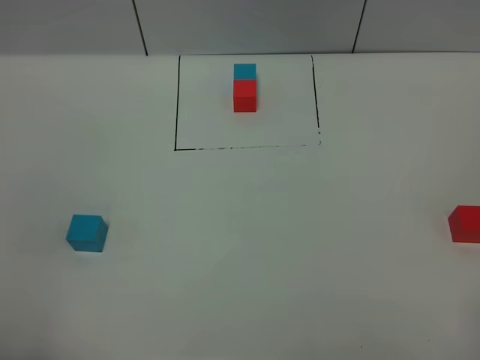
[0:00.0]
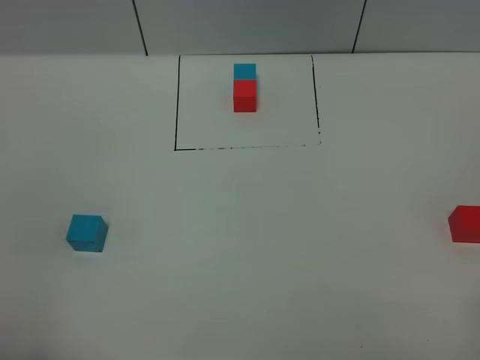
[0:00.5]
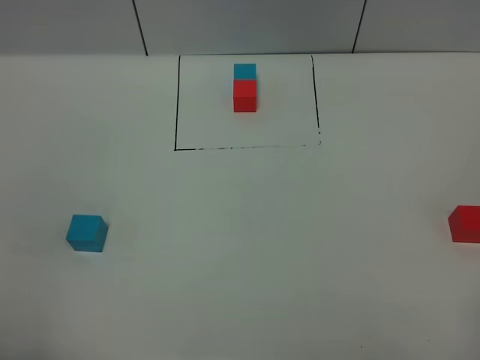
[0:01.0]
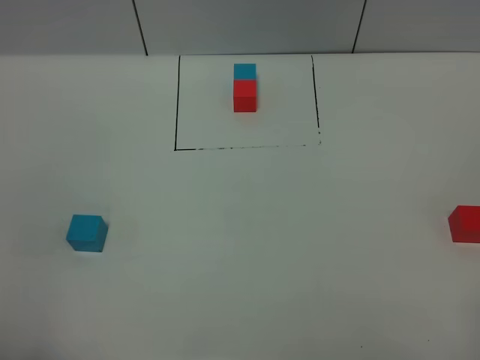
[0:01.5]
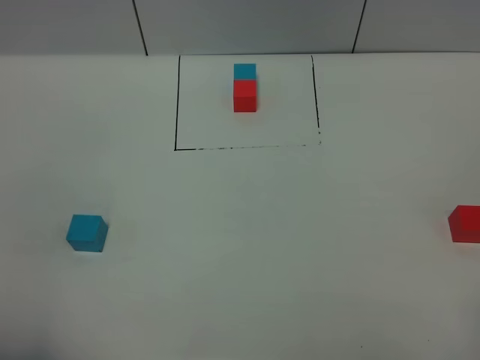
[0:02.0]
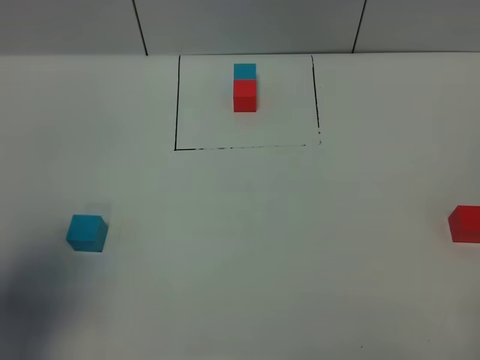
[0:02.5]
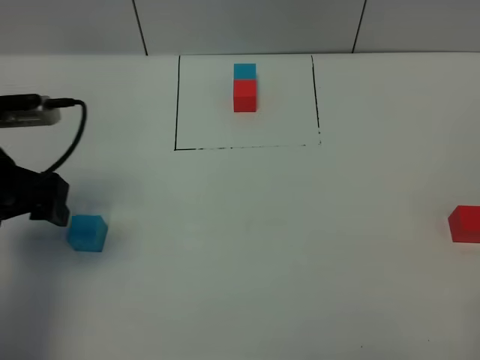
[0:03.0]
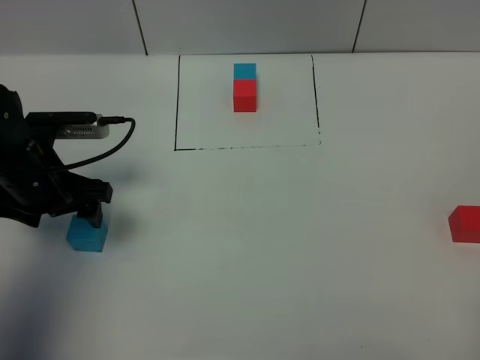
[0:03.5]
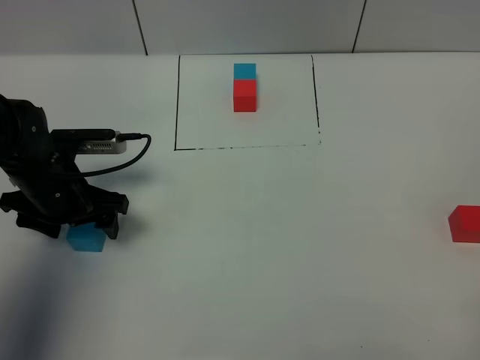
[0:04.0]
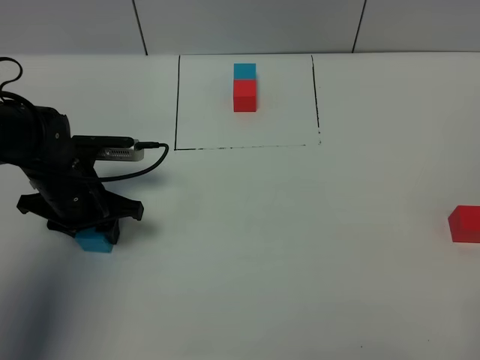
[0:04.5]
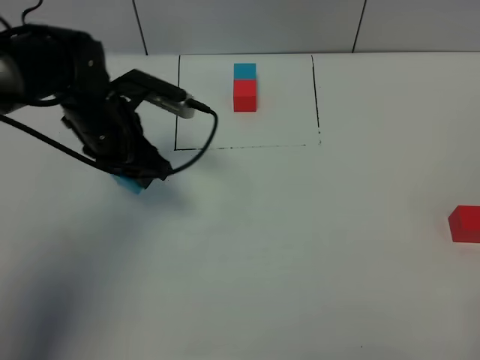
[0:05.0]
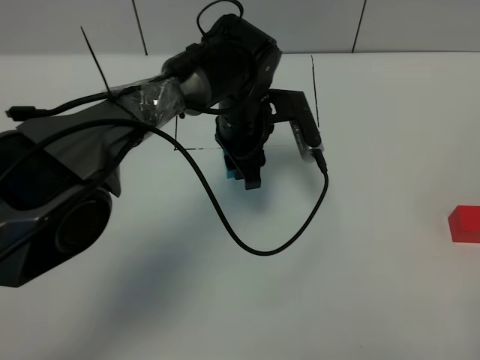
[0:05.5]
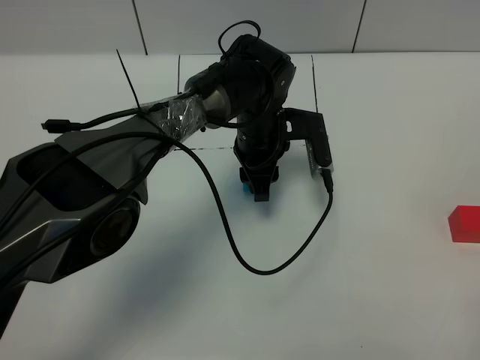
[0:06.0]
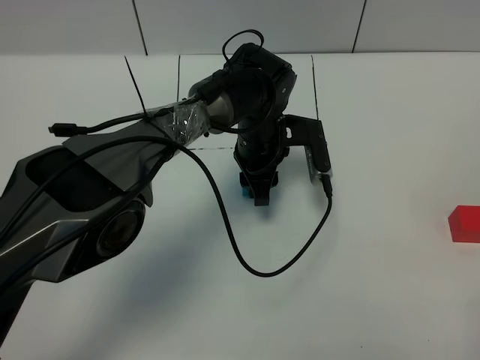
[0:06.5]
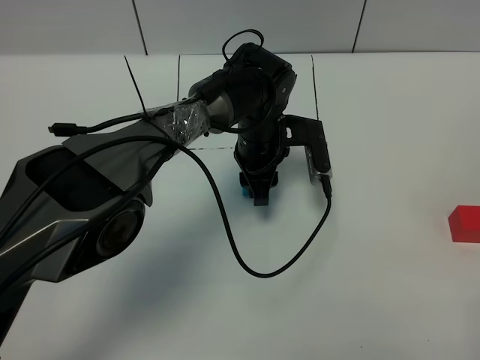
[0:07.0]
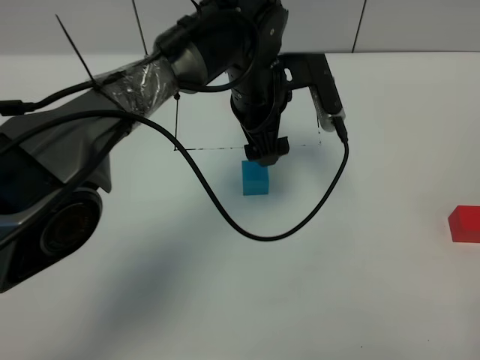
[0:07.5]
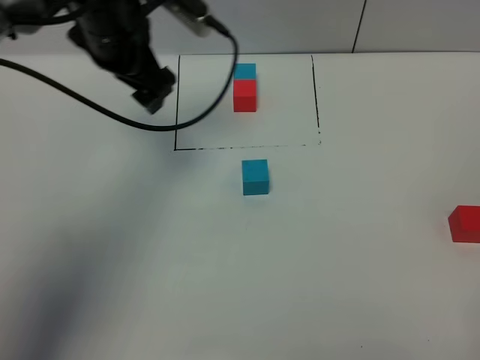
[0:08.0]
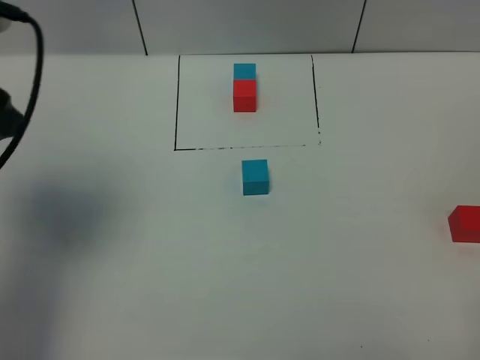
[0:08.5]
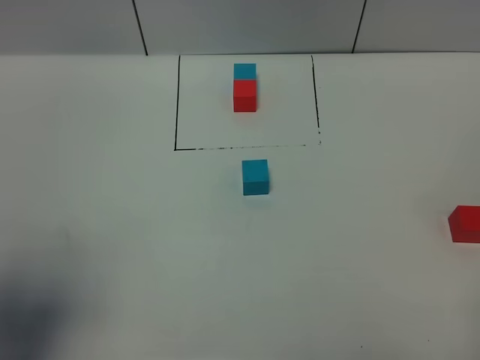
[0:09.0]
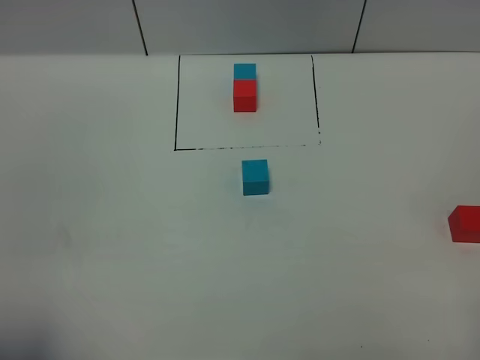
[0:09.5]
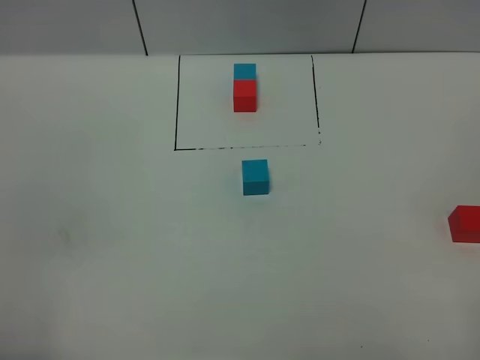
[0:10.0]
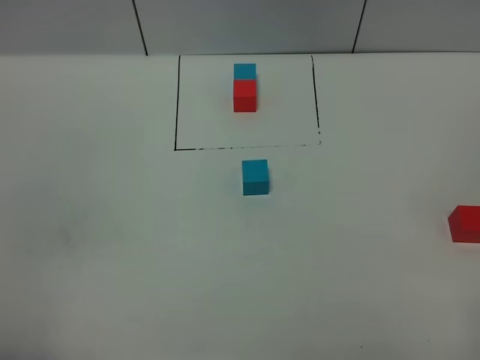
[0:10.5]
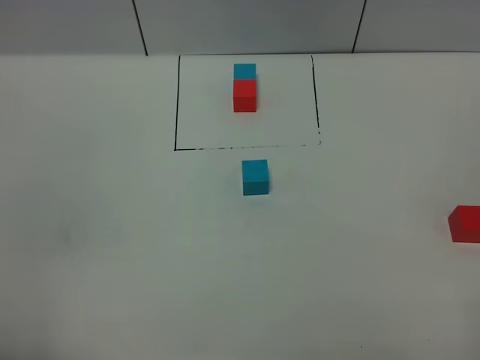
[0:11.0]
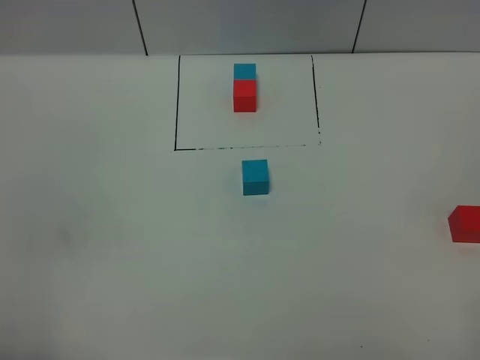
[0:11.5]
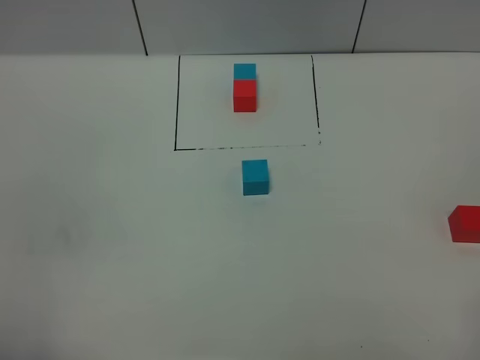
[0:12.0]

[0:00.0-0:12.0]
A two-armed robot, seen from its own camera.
Task of the whole recording: According to the building block template in front, assemble the scattered blocks together.
Step, 0:03.0 to 0:07.5: Put the blue cube in the center of the table.
0:02.0 to 0:04.0: The left gripper heads forward and downward, covering about 35 cm.
0:04.0 to 0:06.0: The left gripper shifts about 25 cm to the right, and closes.
0:06.0 to 0:08.0: The left gripper moves to the left and upward, about 25 cm, and opens up.
0:08.0 to 0:10.0: The left gripper goes about 40 cm backward.
0:10.0 to 0:12.0: The two grippers keep their place.

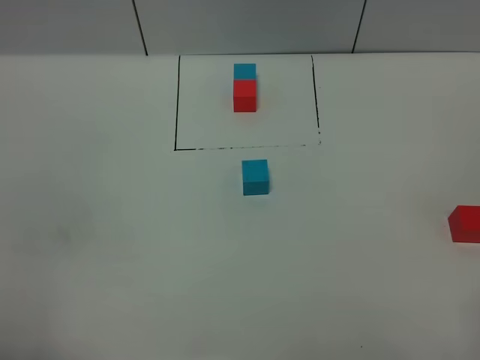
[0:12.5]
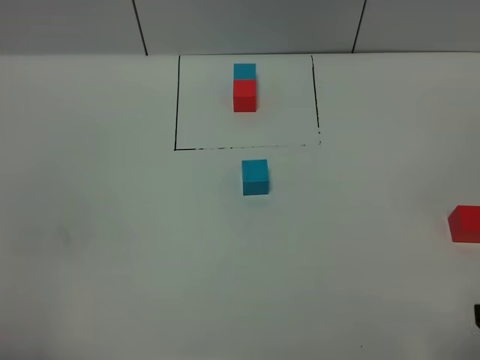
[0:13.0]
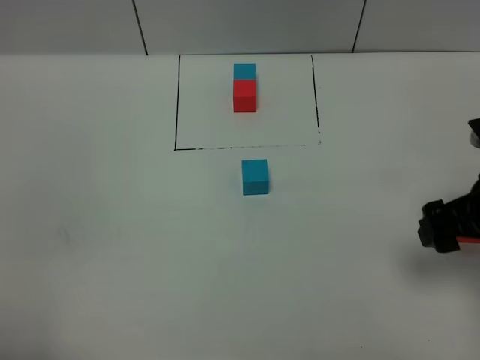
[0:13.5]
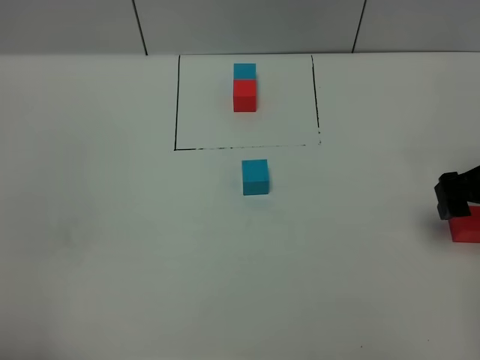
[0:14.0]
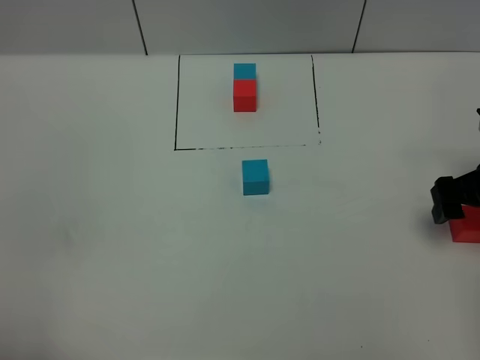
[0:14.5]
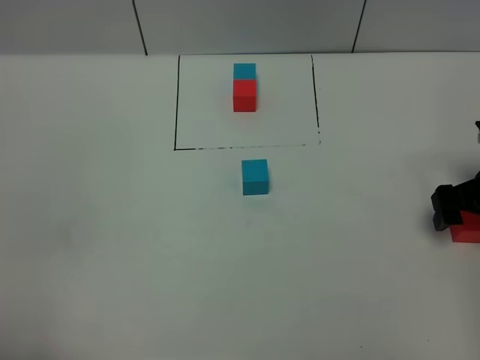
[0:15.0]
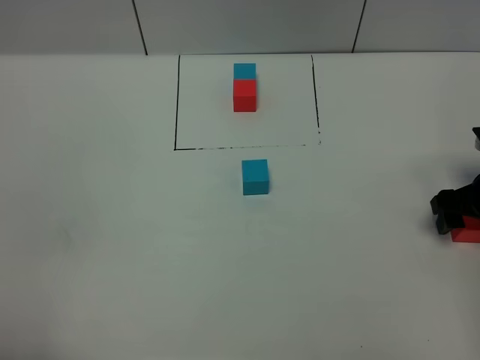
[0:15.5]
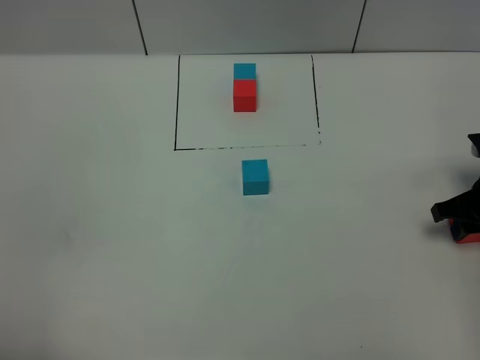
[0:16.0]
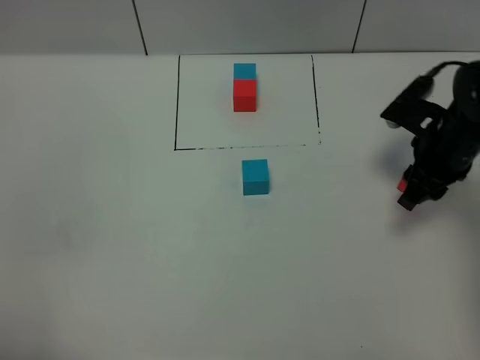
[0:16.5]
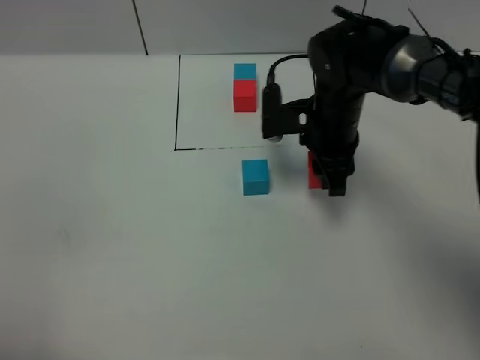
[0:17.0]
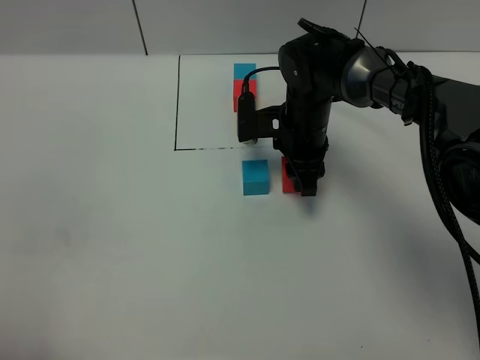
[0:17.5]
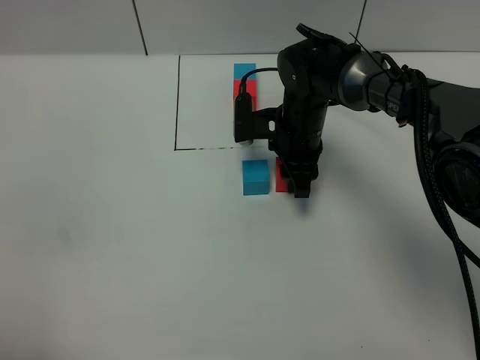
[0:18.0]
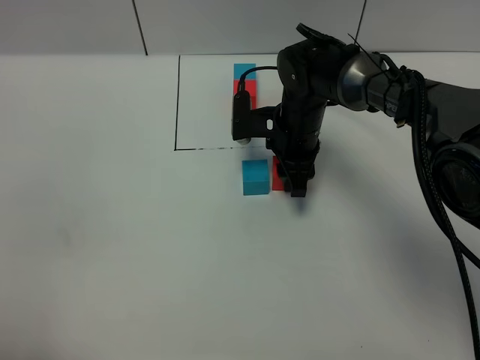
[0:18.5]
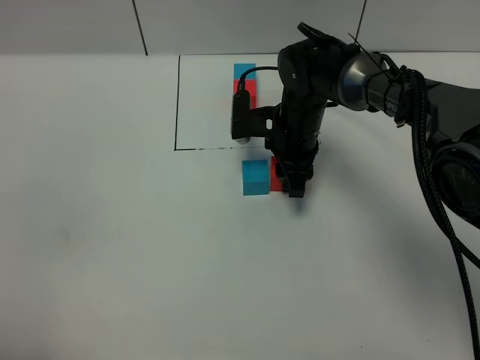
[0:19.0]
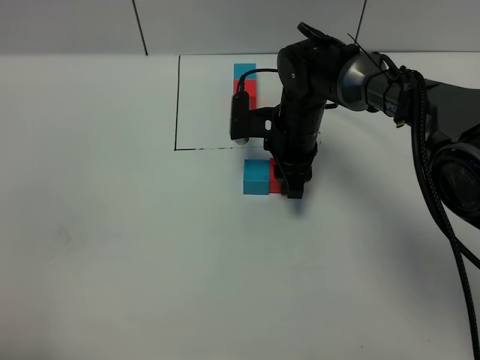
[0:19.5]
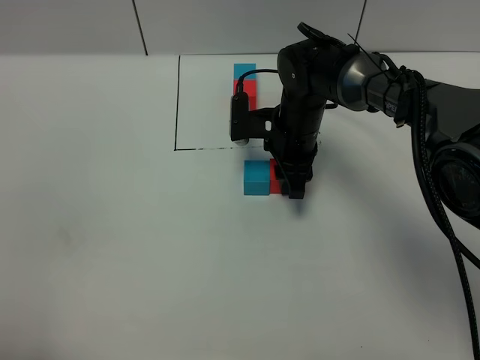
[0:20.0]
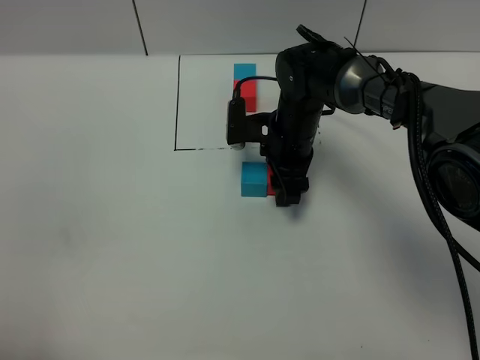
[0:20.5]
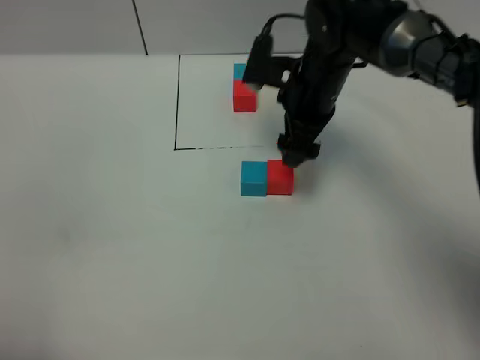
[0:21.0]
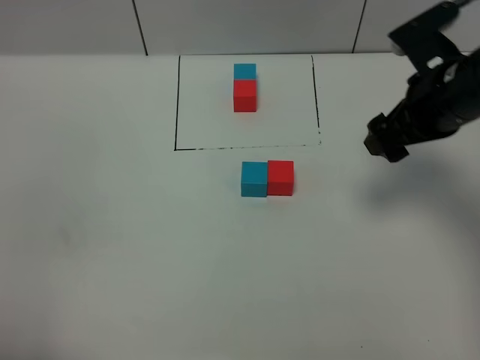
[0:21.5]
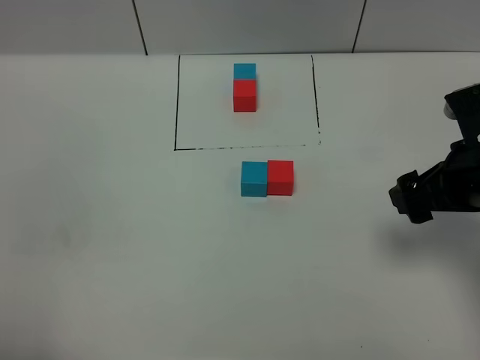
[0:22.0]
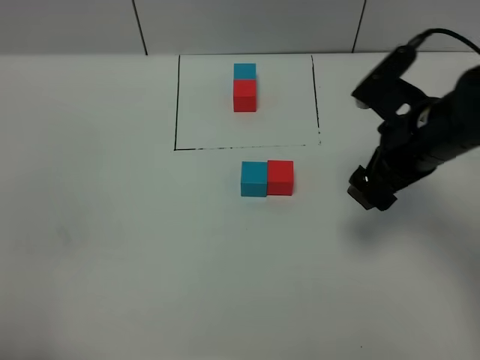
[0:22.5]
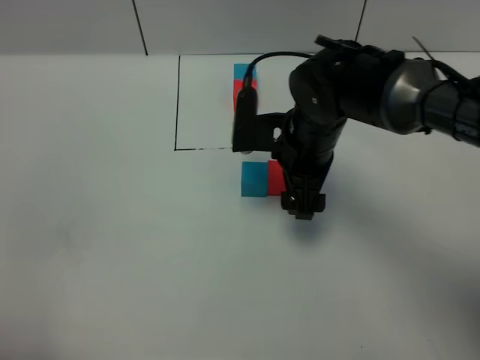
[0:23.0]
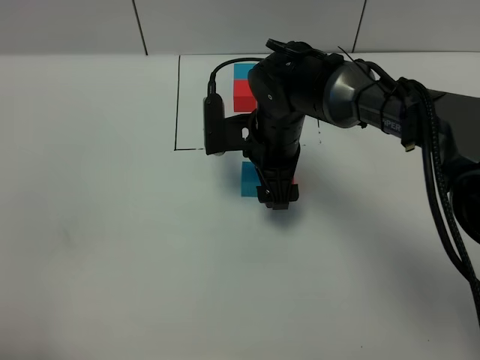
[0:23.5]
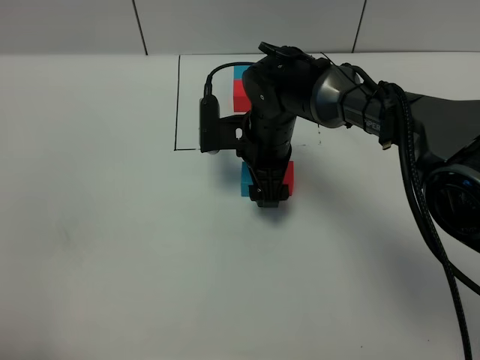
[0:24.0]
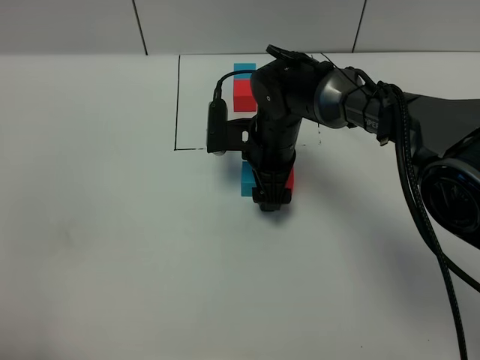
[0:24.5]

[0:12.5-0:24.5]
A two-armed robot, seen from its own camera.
Task of the whole recording: According to the building block template in front, assemble the scattered blocks together.
Step, 0:12.5 to 0:21.0: Put the red cube on the right of the blue cube.
0:12.5 to 0:14.5: The right gripper heads forward, covering some 30 cm.
0:14.5 to 0:16.5: The right gripper travels to the left and forward by some 10 cm, and closes.
0:16.5 to 0:18.5: The right gripper travels to the left and forward by some 20 cm.
0:18.5 to 0:20.5: The right gripper opens its fingers.
0:20.5 to 0:22.5: The right gripper goes roughly 20 cm backward, upward and to the right.
0:22.5 to 0:24.5: The right gripper goes roughly 20 cm to the left, forward and downward.

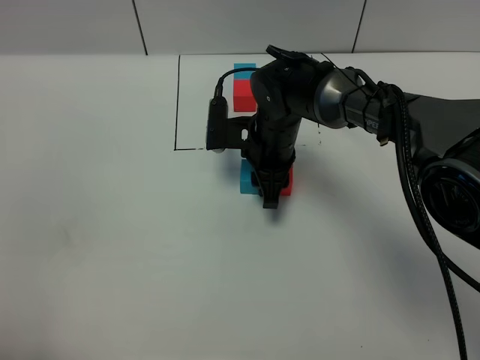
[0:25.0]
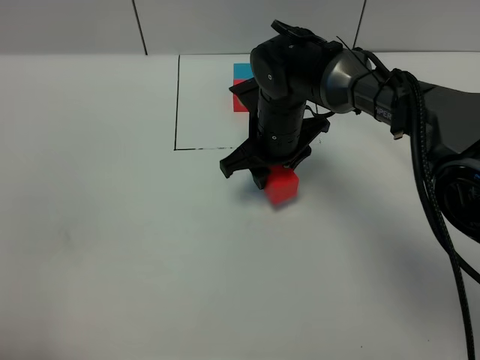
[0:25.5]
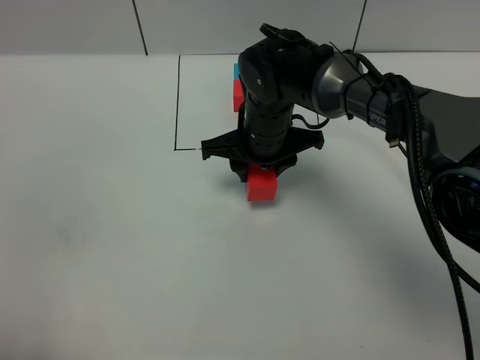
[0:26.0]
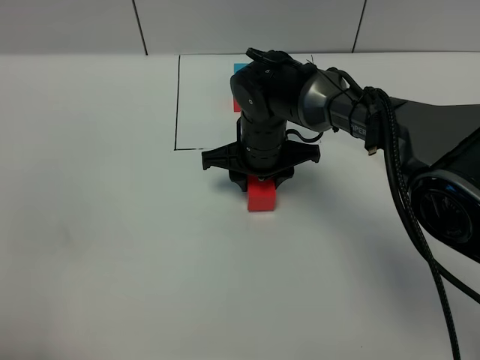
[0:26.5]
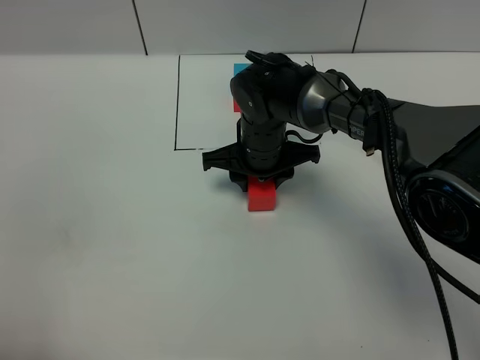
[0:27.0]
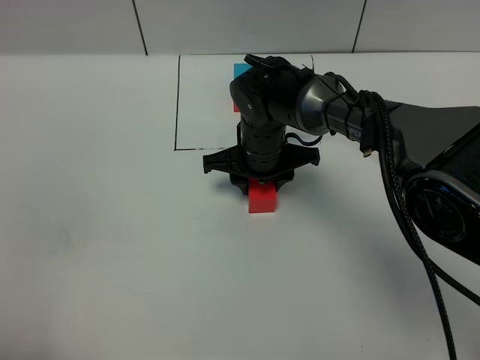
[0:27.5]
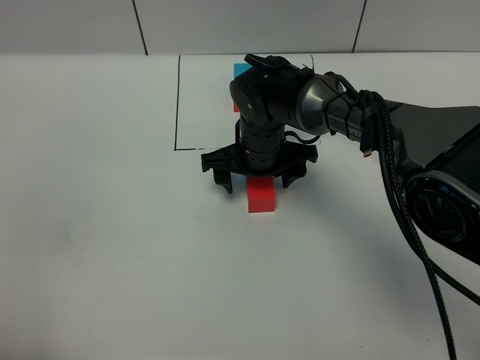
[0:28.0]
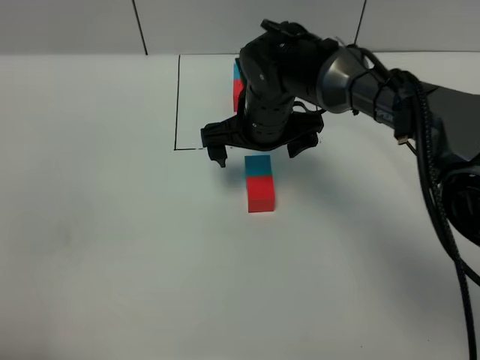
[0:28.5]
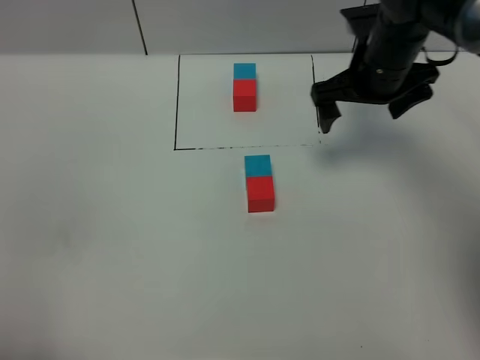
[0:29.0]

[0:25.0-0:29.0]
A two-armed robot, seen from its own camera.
Task of the whole recording: According to the building block template in front, assemble the scattered blocks together.
Step, 0:25.0 to 0:28.5: Adjust the pose of the building blocks.
0:27.0 to 0:29.0: The right gripper travels to the right and upward by some 20 cm, and opens its fingers.
